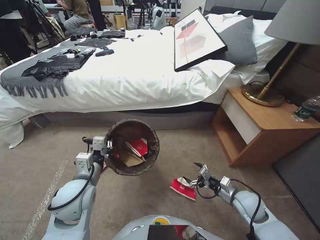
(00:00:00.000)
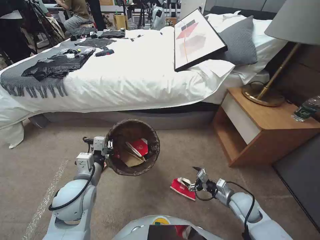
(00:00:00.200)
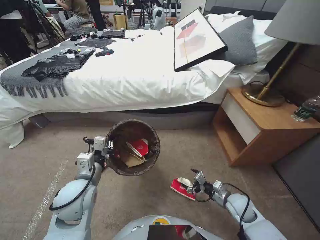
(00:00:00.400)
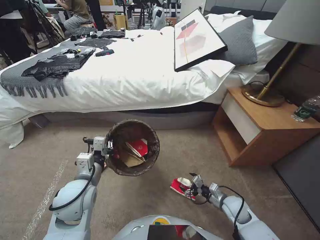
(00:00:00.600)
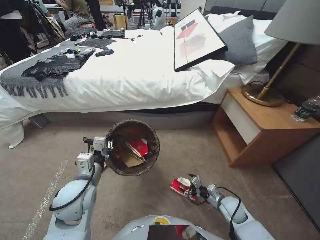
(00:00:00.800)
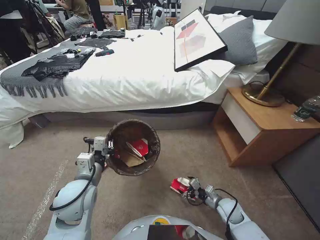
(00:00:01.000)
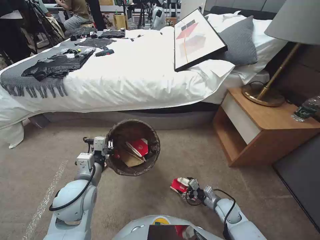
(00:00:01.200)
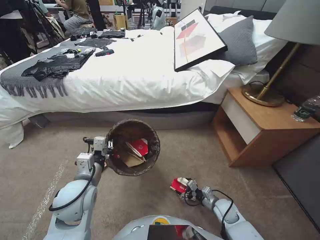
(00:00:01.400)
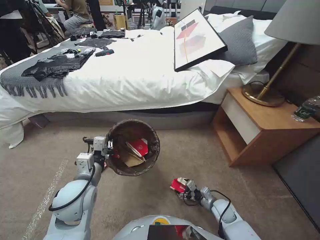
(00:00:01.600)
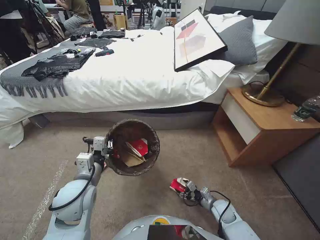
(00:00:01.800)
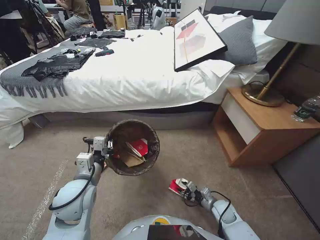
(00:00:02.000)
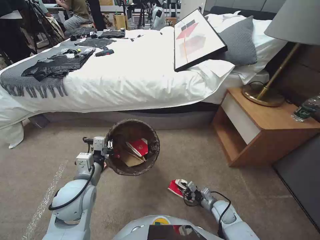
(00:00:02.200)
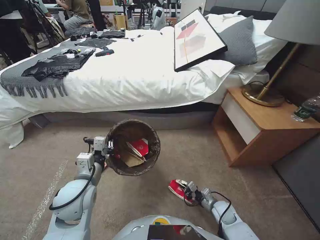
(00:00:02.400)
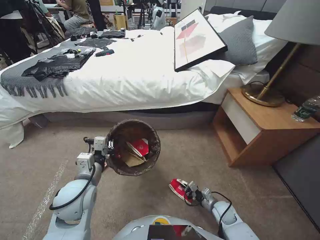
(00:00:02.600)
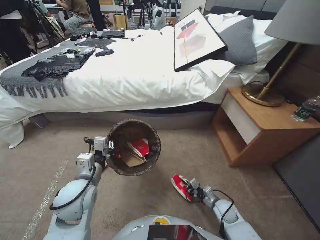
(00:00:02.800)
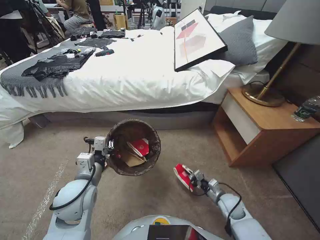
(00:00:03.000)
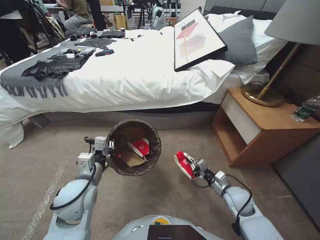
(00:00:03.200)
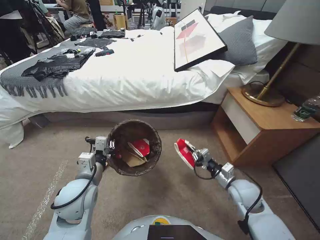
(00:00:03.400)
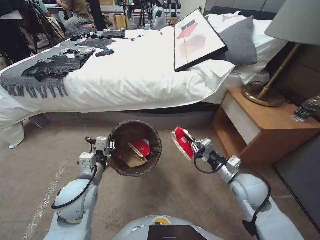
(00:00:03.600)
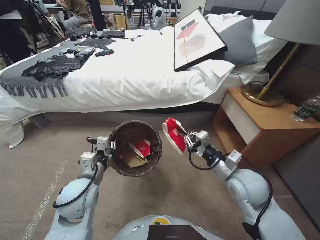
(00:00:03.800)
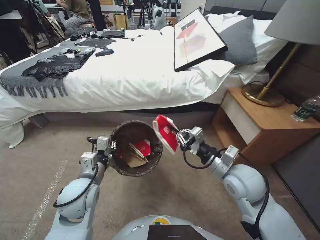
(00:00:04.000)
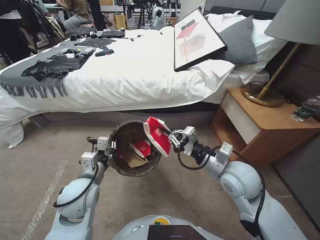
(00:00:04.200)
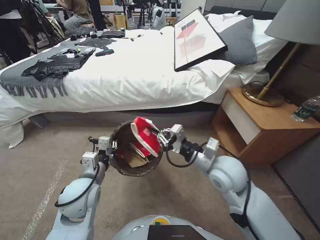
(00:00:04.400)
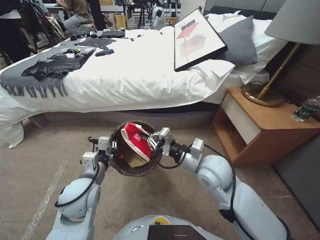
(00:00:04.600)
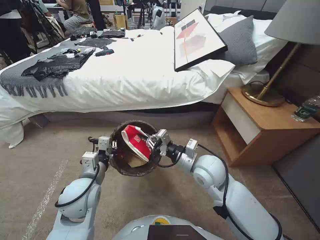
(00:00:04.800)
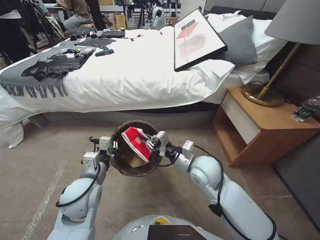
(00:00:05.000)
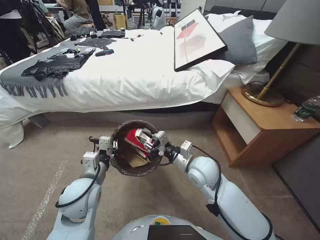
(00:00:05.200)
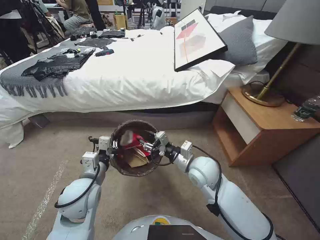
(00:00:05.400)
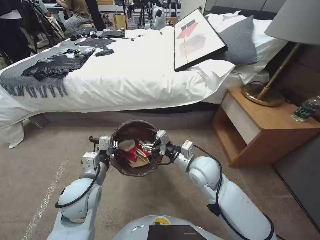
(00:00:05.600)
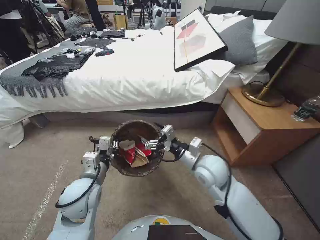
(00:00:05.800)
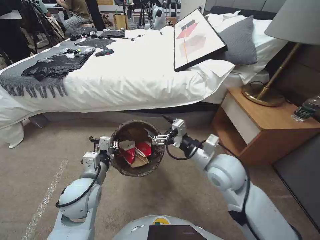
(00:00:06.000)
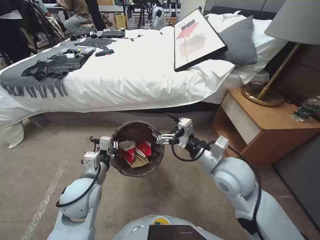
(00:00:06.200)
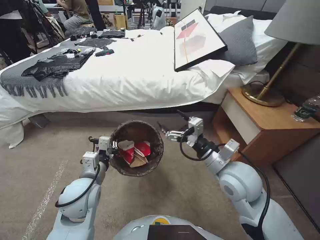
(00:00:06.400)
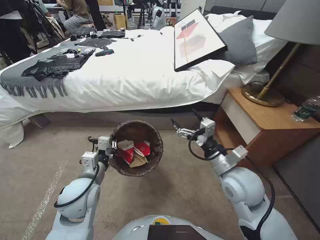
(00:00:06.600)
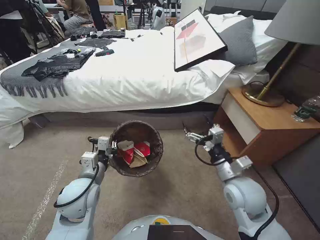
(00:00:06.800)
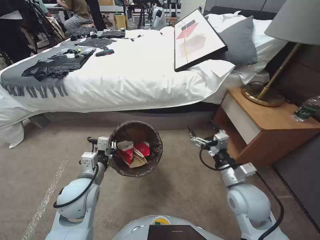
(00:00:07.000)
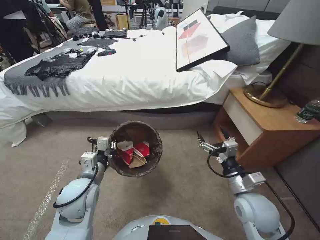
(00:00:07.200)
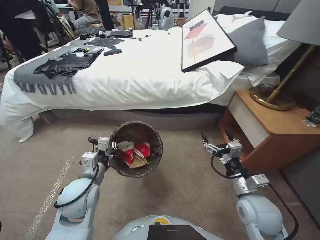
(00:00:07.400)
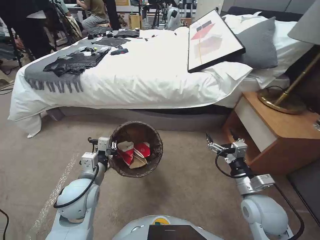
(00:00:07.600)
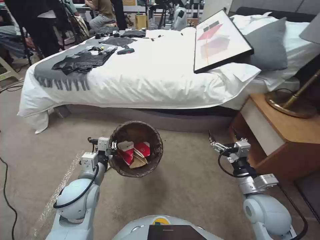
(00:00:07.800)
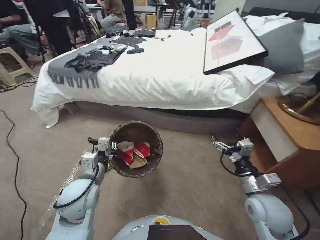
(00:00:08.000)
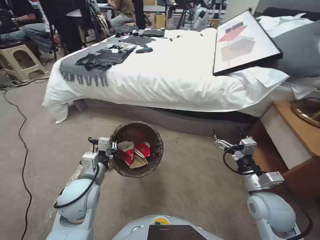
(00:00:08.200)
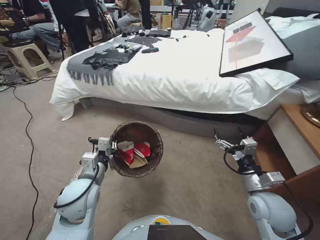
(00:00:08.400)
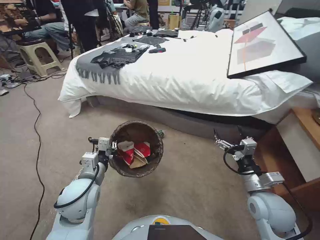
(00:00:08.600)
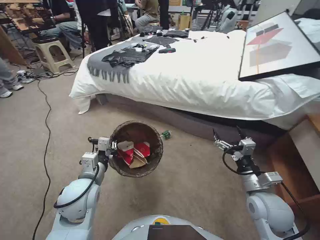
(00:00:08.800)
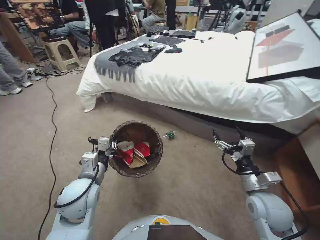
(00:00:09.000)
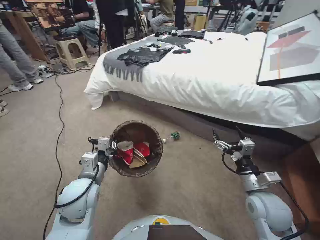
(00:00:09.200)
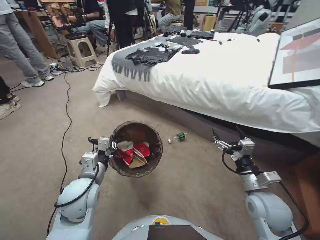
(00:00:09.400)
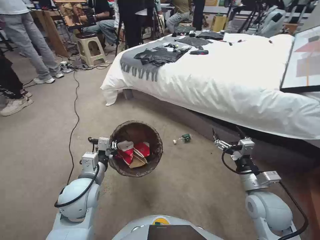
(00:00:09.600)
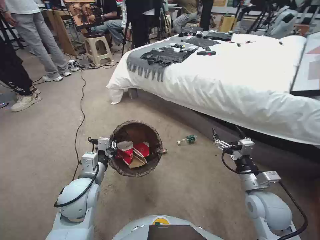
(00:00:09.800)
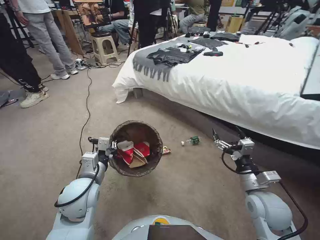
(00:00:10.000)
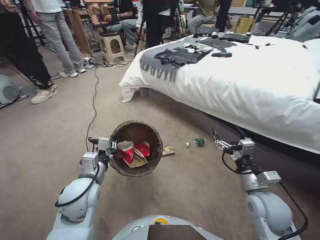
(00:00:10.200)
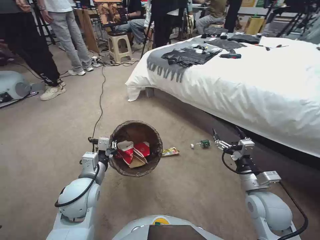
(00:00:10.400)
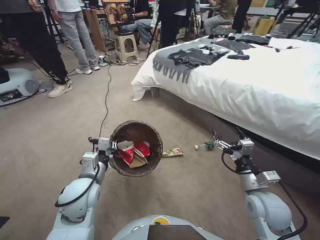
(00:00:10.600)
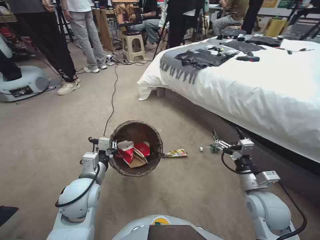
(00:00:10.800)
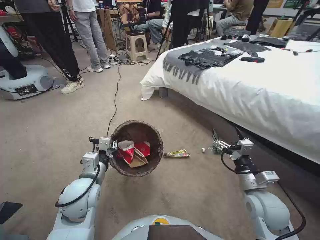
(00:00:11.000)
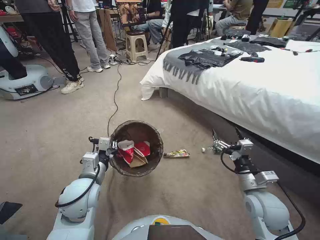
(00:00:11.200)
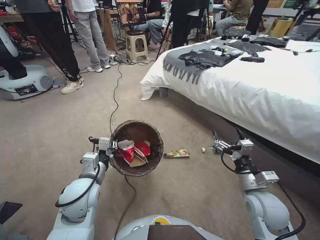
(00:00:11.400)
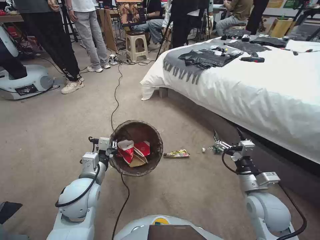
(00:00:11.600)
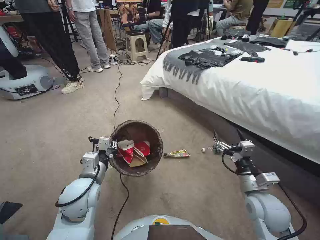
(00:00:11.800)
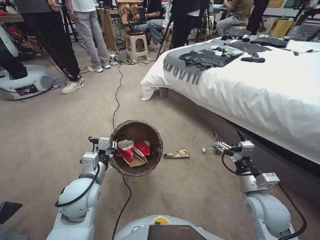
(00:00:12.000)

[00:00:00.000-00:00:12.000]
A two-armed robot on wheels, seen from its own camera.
Task of the whole recording: Pick up the trash bin, then pick up the garbage from the floor and place it into the trash bin.
00:00:00.000 to 00:00:01.600: The right gripper goes some 15 cm downward.
00:00:01.600 to 00:00:03.000: The right gripper closes.
00:00:03.000 to 00:00:04.400: The right gripper is displaced upward by roughly 30 cm.
00:00:04.400 to 00:00:06.000: The right gripper opens up.
00:00:06.000 to 00:00:07.600: The right gripper moves to the right, backward and downward, roughly 15 cm.

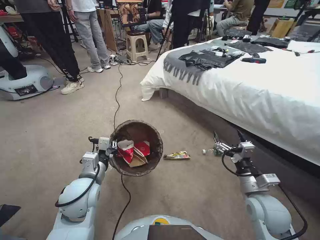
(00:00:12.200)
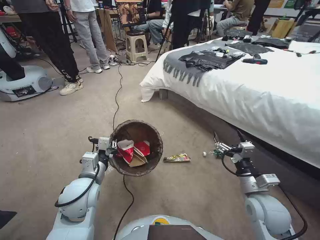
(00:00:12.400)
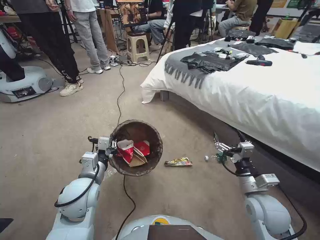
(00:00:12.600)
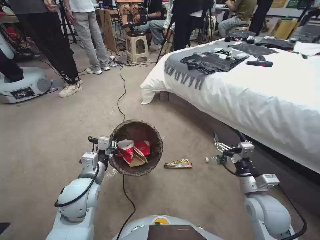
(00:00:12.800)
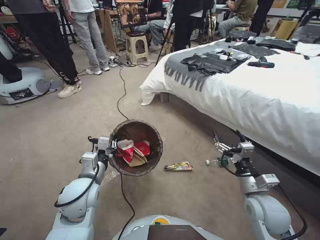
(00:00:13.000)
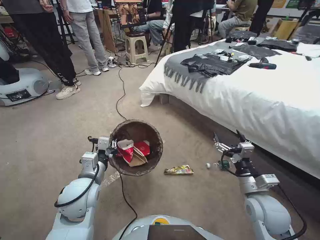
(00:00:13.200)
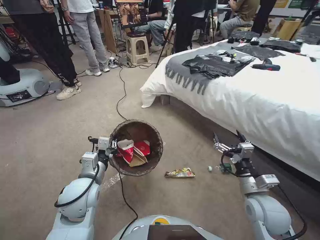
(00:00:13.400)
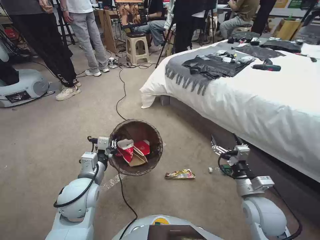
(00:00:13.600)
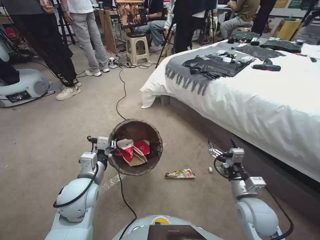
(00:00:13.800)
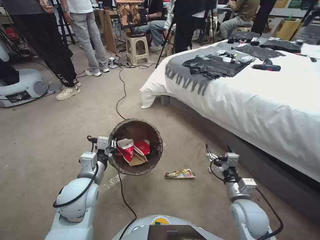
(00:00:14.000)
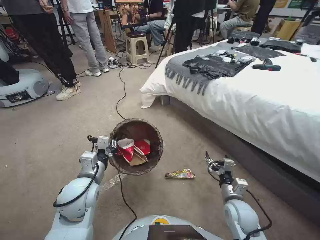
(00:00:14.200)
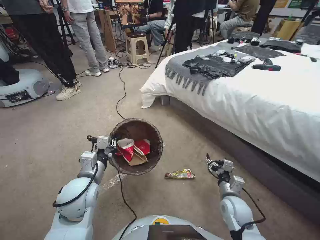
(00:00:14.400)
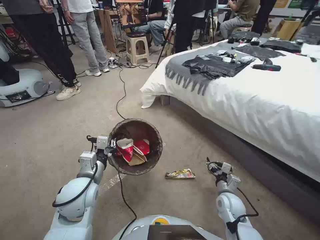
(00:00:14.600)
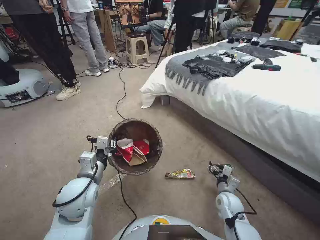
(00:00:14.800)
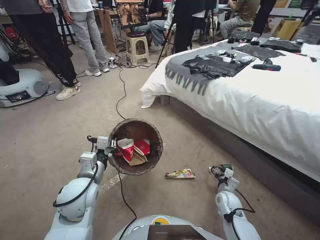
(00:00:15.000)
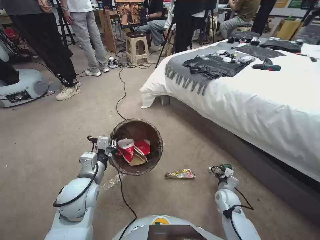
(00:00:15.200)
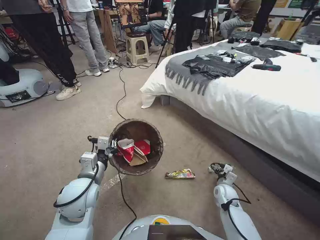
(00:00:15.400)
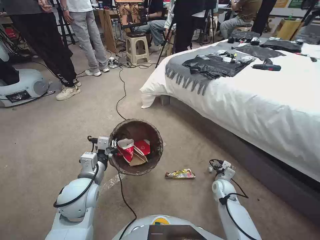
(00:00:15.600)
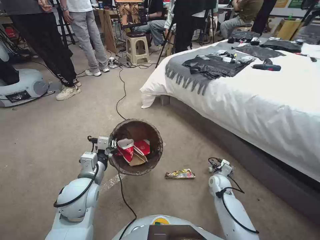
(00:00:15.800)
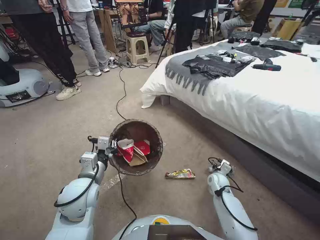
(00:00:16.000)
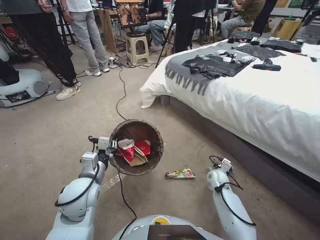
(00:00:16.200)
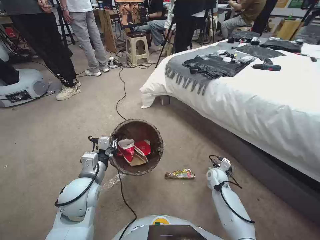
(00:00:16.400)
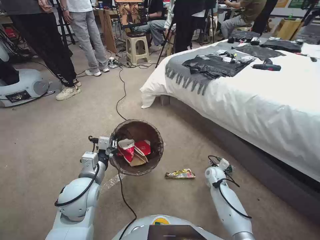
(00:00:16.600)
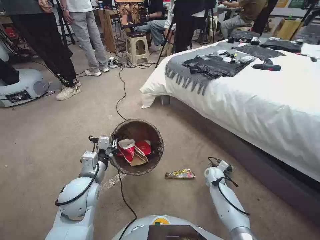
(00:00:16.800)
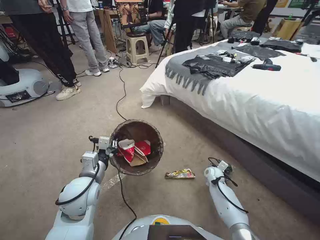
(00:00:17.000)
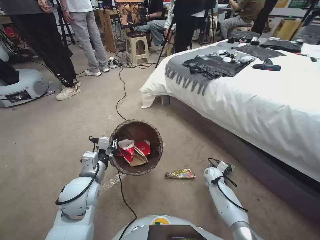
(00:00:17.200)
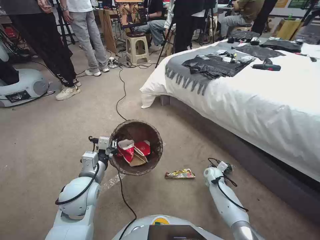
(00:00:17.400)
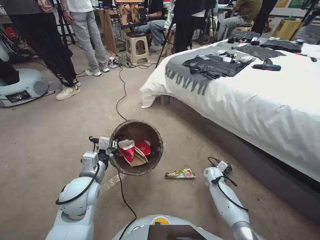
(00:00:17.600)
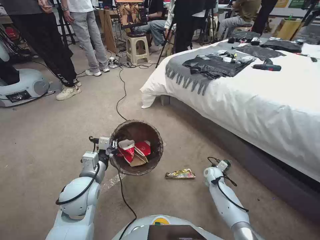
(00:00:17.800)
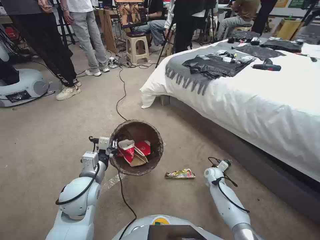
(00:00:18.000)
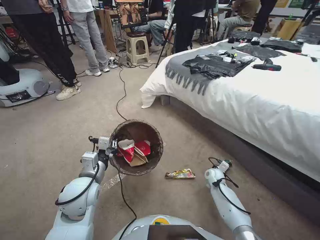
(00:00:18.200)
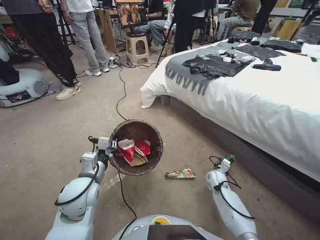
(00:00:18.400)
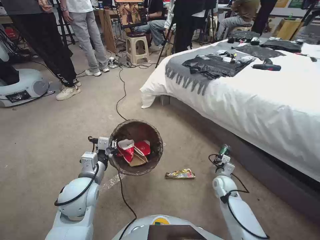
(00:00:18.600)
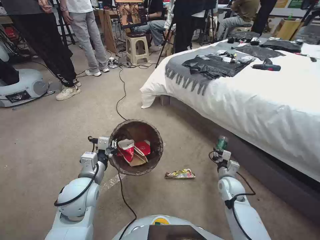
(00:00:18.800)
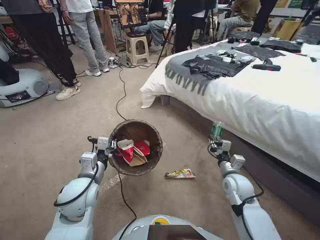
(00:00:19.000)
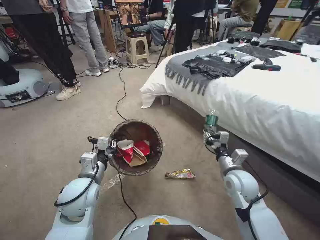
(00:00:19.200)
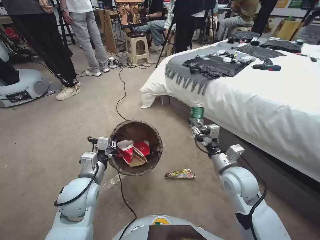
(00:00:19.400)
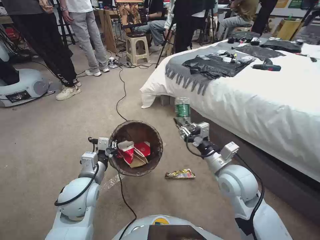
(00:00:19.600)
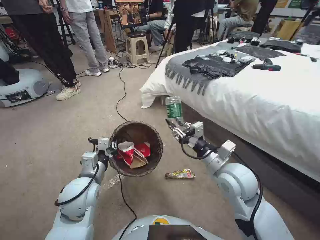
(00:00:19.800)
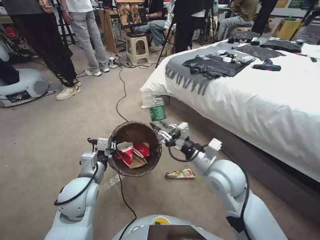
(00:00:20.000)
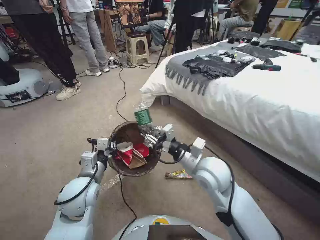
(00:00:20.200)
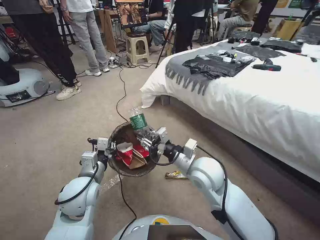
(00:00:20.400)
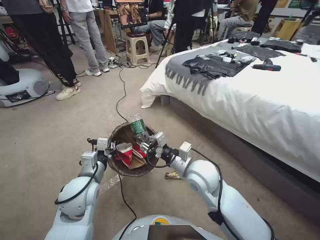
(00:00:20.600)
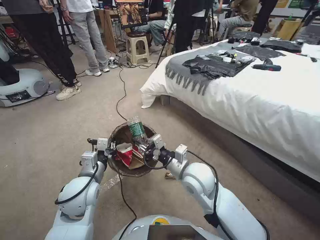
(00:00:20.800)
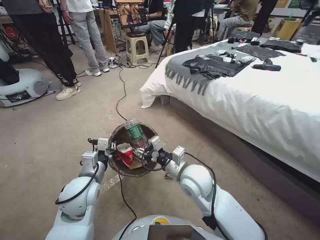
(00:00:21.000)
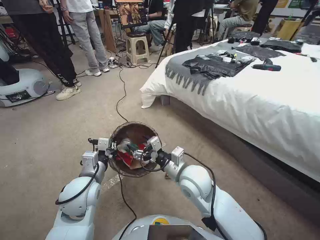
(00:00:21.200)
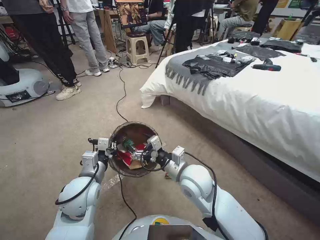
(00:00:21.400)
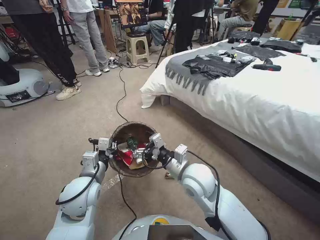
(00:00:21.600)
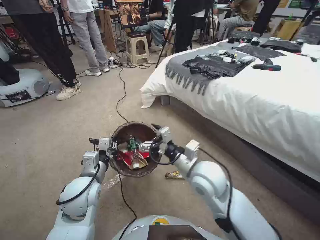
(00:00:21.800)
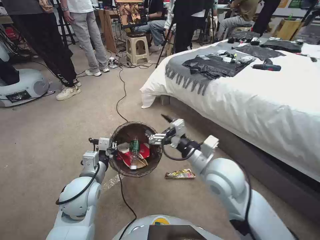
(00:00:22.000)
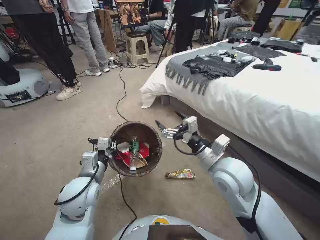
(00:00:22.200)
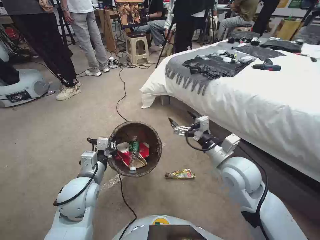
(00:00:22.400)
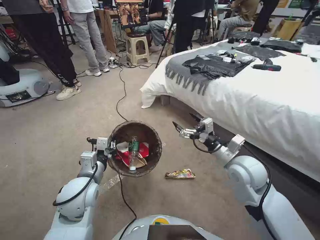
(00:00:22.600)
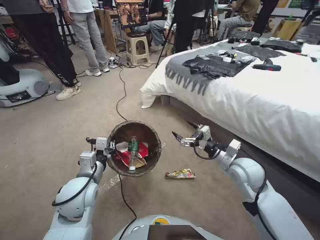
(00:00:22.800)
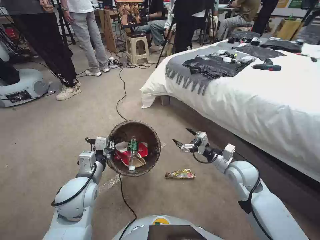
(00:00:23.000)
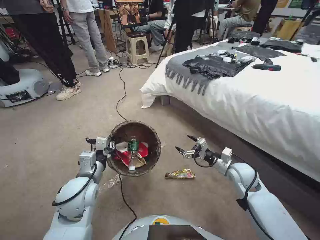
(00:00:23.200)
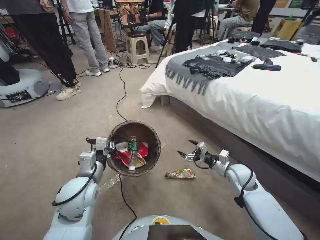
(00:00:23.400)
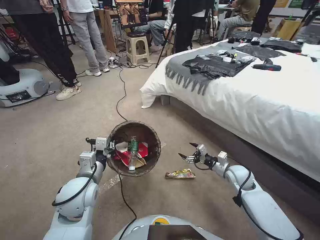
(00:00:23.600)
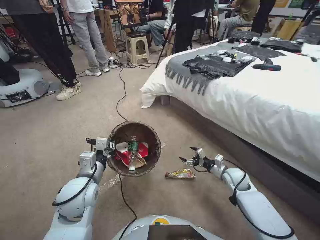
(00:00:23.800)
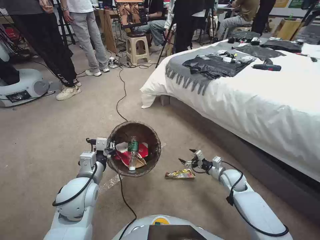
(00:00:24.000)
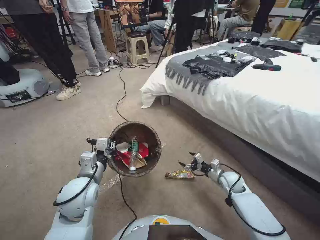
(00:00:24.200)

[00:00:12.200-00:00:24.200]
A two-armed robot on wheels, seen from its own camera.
Task of the whole recording: Pick up the trash bin, then pick up the garbage from the floor and place it into the trash bin.
00:00:13.800 to 00:00:15.200: The right gripper moves downward, about 20 cm.
00:00:15.200 to 00:00:16.600: The right gripper moves forward, roughly 10 cm.
00:00:16.600 to 00:00:18.200: The right gripper closes up.
00:00:18.200 to 00:00:19.800: The right gripper moves upward, approximately 30 cm.
00:00:19.800 to 00:00:21.200: The right gripper travels to the left by approximately 10 cm, and opens.
00:00:21.200 to 00:00:22.600: The right gripper goes about 15 cm to the right.
00:00:22.600 to 00:00:24.200: The right gripper travels downward by about 25 cm.
